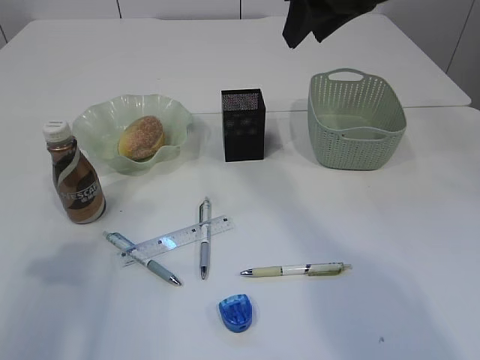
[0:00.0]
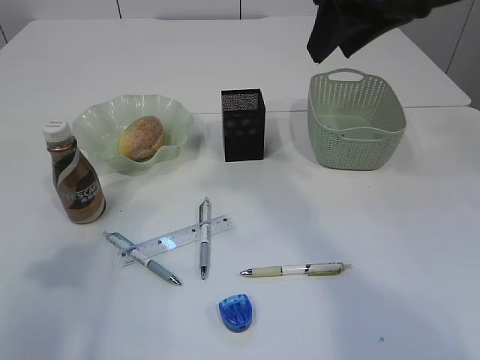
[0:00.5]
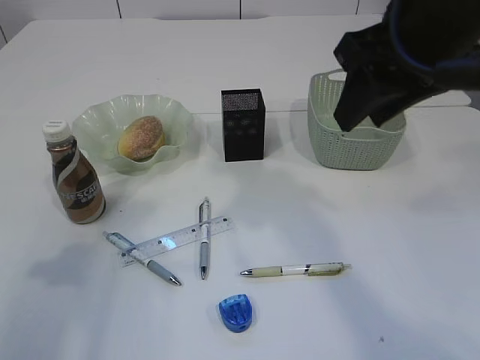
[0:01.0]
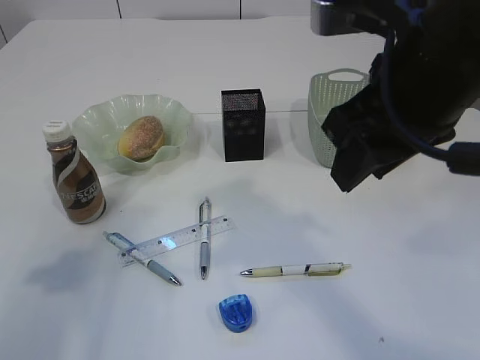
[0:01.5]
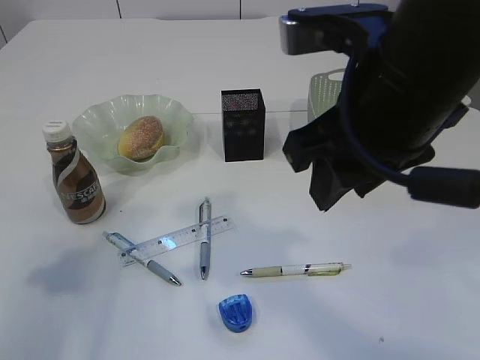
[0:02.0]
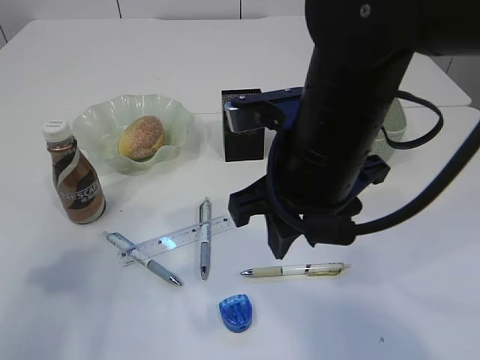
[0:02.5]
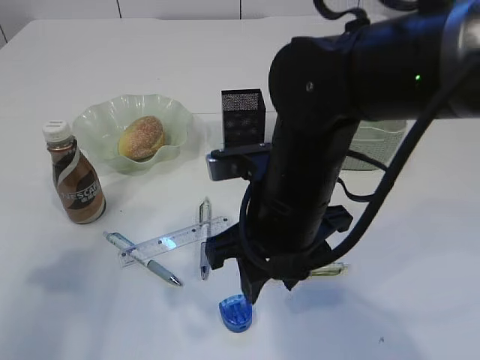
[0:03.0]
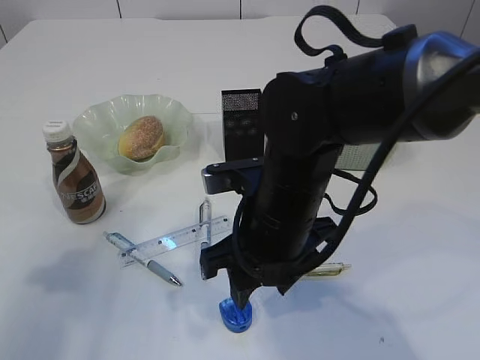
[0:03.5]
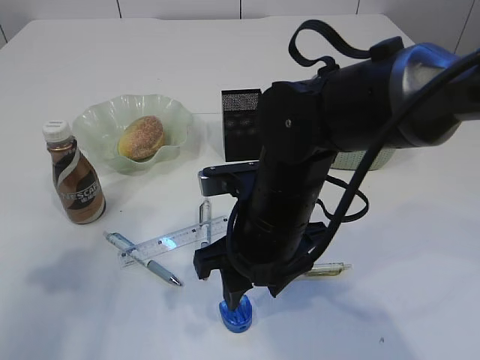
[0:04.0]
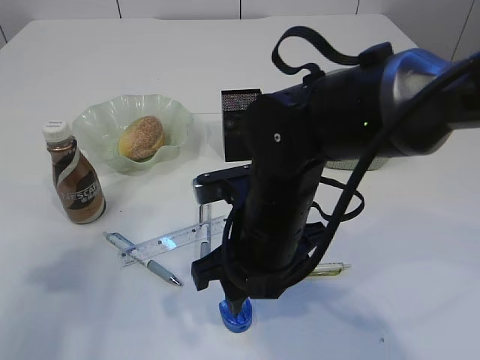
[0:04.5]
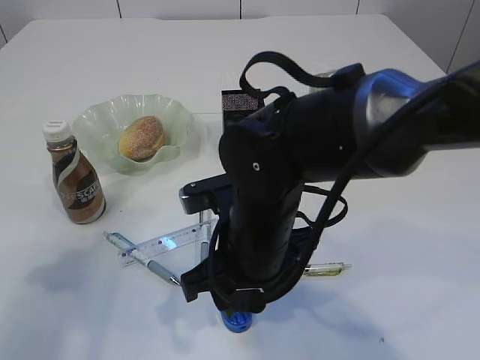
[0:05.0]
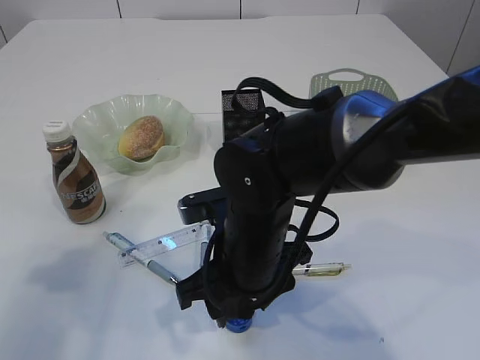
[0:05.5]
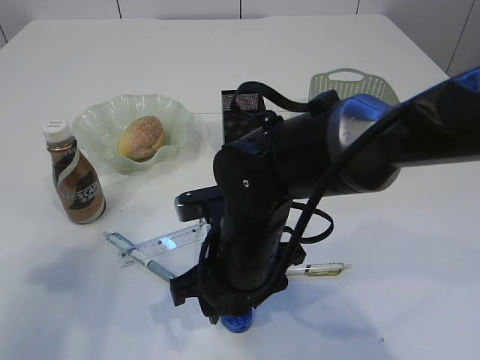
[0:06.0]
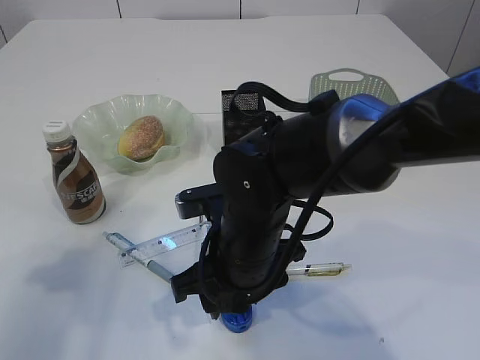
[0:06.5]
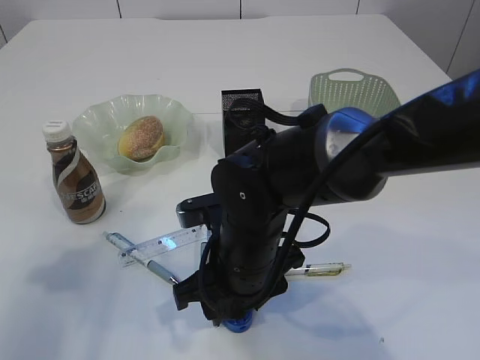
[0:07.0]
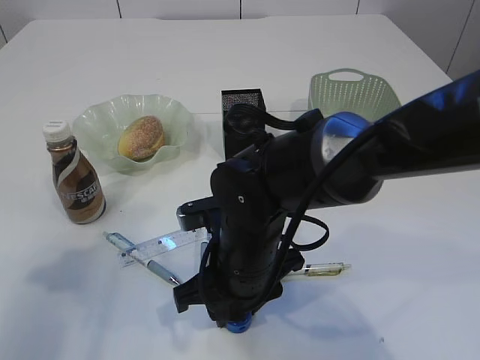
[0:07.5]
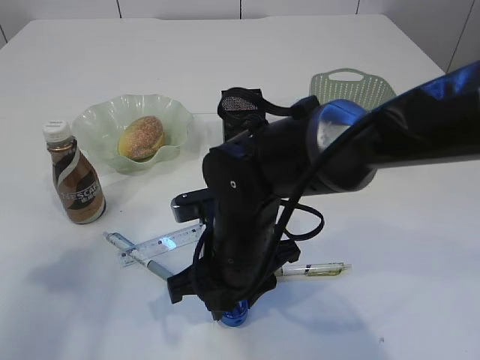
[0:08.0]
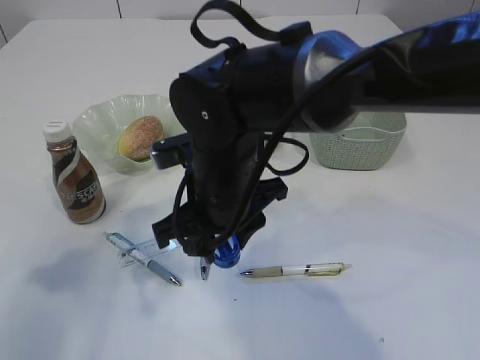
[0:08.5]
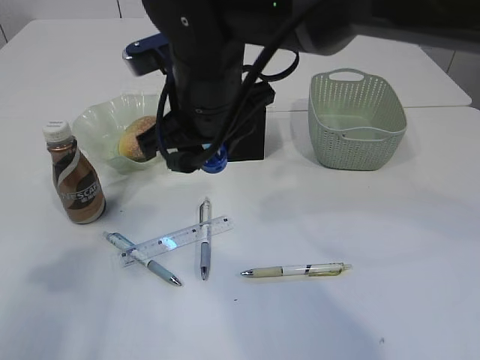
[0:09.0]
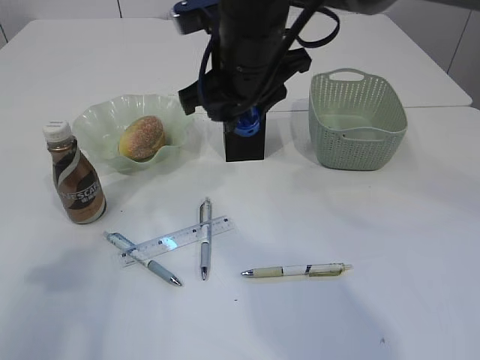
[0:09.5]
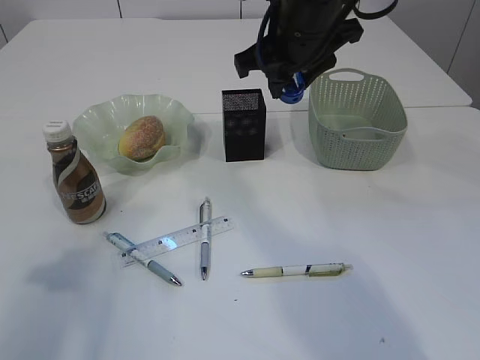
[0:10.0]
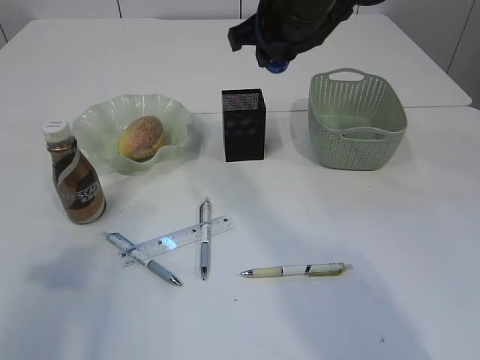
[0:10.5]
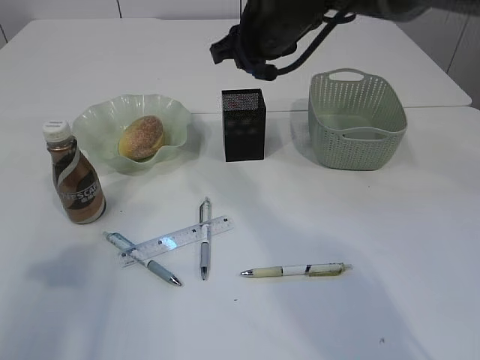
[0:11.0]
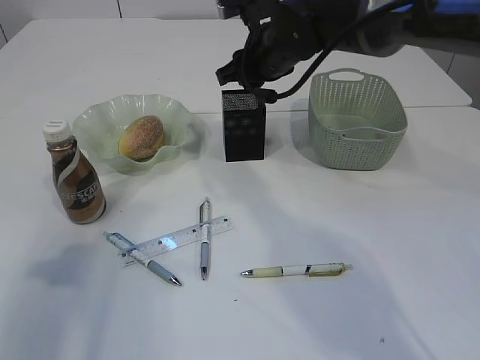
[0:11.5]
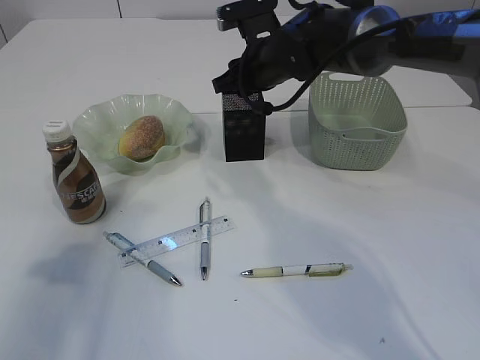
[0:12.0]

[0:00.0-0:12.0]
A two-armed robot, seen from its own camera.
Step, 0:00.0 to 0:08.5: Pick up the blue pencil sharpener.
0:00.0 to 0:02.0: The right gripper moves backward, about 15 cm.
0:02.0 to 0:04.0: The right gripper goes approximately 15 cm downward and to the left.
0:04.0 to 0:08.0: The grippers make only small movements.
0:08.0 to 0:10.0: The right gripper goes approximately 25 cm upward, forward and to the right.
0:10.0 to 0:12.0: The right gripper heads forward and downward, covering approximately 15 cm.

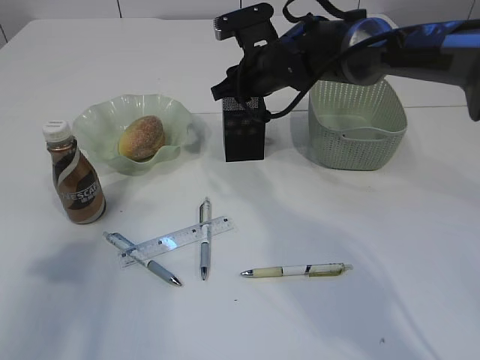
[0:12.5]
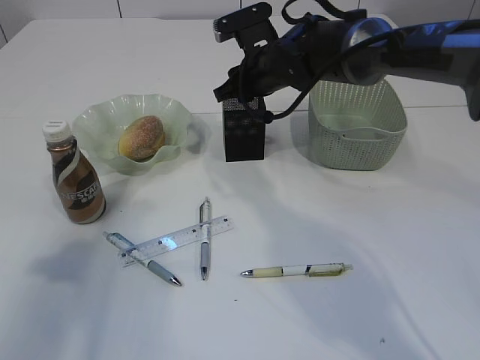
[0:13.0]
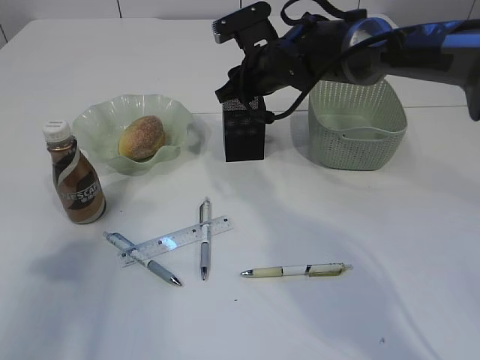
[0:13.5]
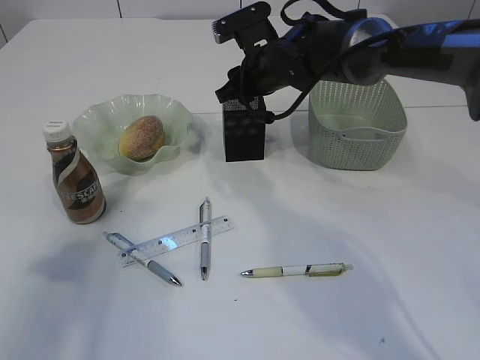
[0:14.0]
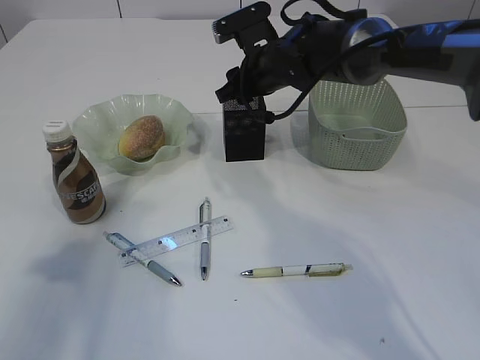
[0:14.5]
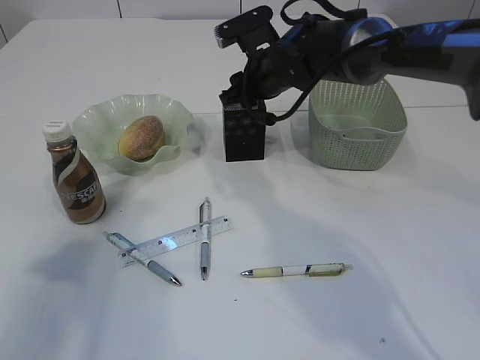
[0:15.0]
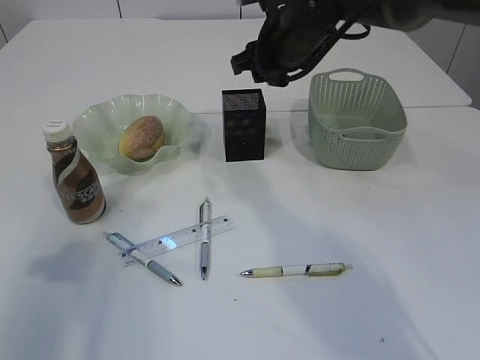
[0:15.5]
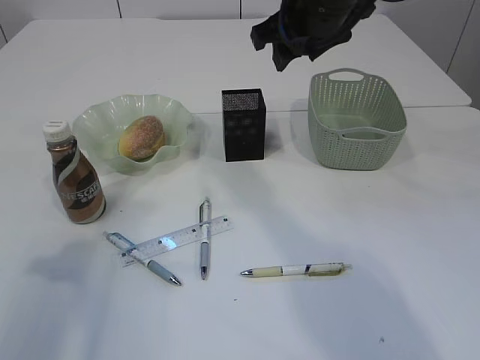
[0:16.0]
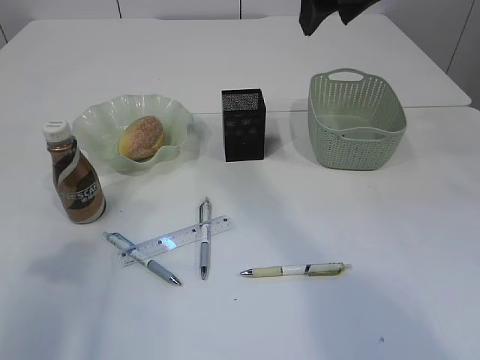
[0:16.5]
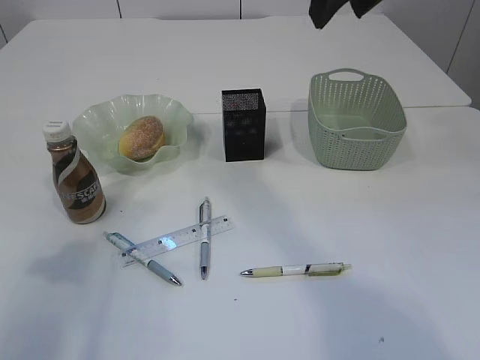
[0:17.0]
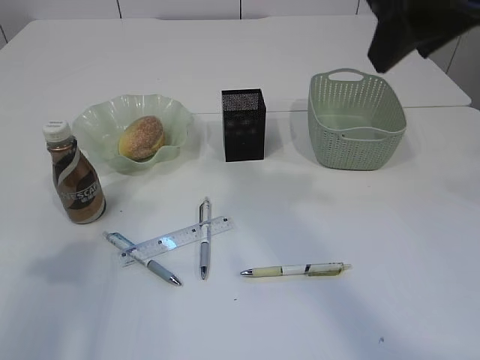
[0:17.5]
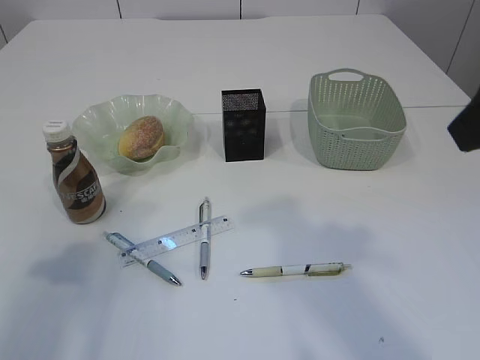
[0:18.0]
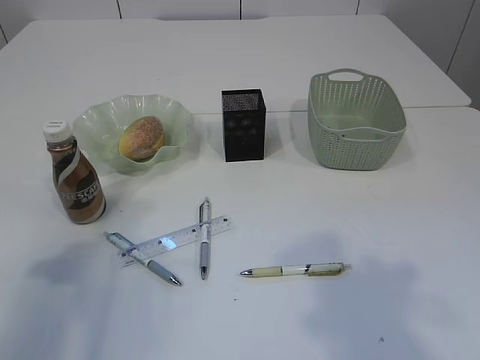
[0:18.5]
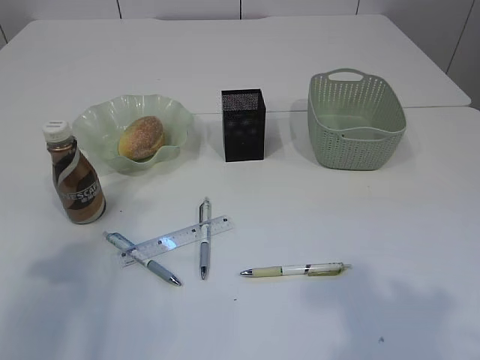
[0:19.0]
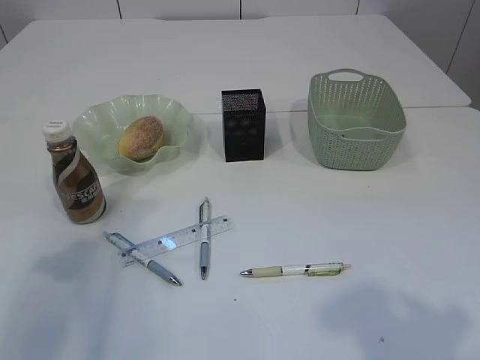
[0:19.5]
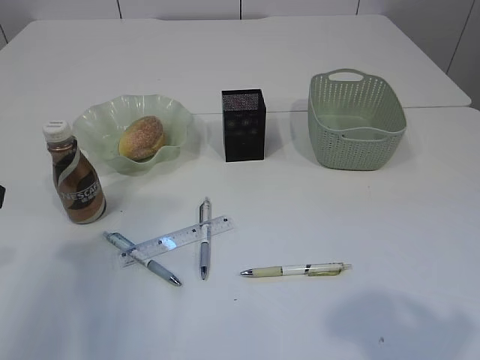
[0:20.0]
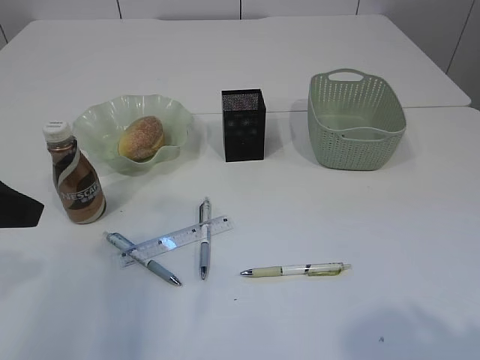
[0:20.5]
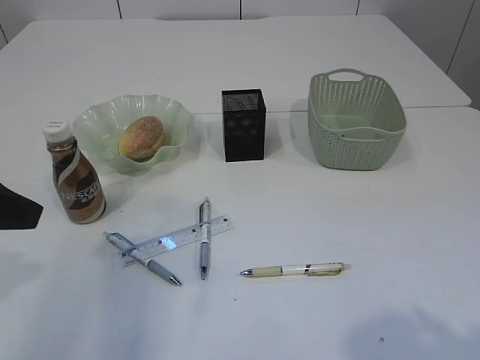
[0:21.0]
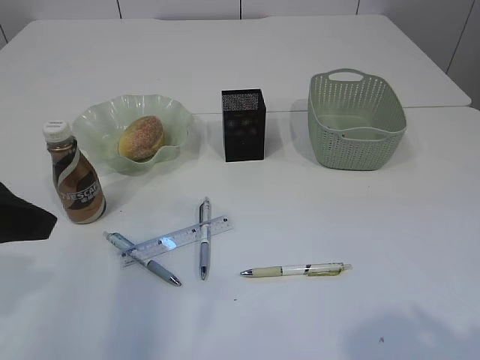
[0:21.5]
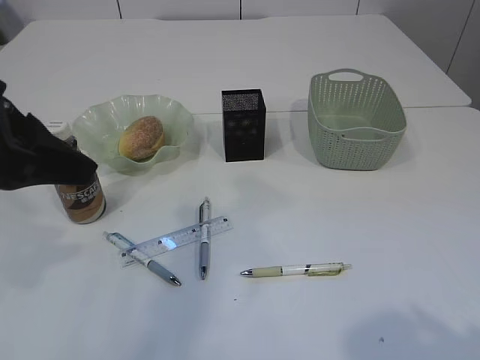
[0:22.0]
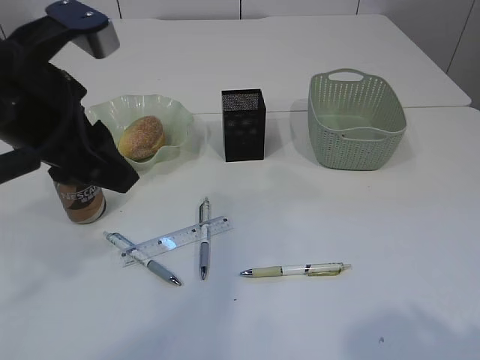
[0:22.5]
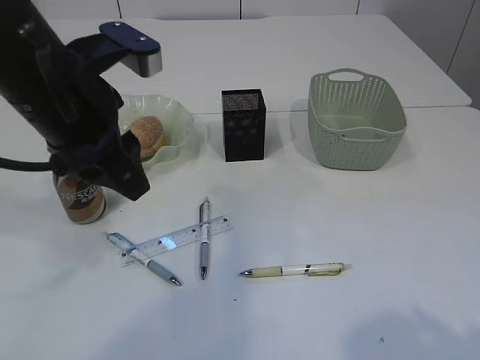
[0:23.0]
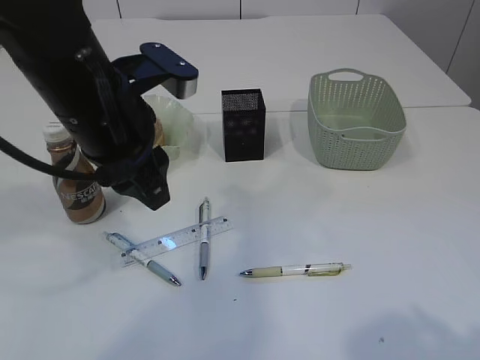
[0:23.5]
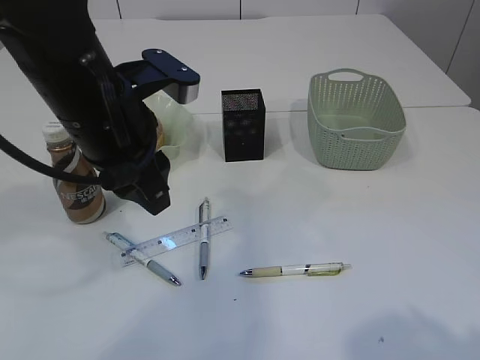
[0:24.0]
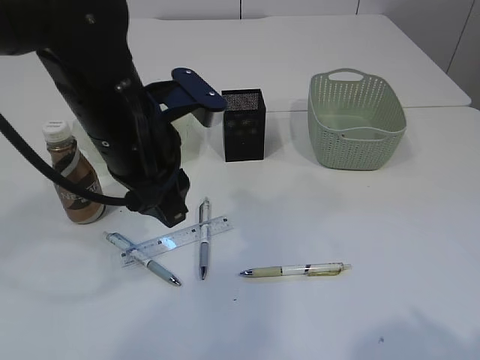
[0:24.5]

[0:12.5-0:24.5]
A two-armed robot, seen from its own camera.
Step, 0:12.5 to 0:15.5: Place the blue pencil sharpener into the pen holder.
0:12.5 to 0:14.5: The grippers move only a little.
0:14.5 to 0:16.5: The right gripper travels upward and backward by some 20 cm.
0:16.5 to 0:18.5: The right gripper heads backward and to the right, covering about 25 cm.
0:20.5 to 0:22.5: The left gripper goes roughly 10 cm to the right.
0:22.5 to 0:24.5: The left gripper heads to the right and downward, covering some 10 cm.

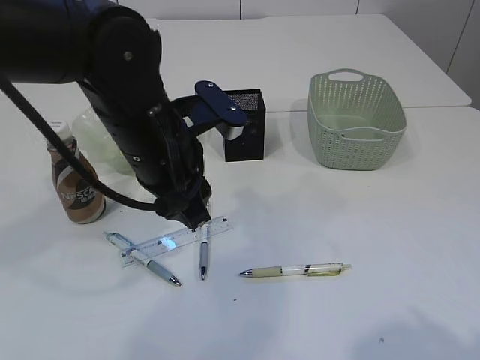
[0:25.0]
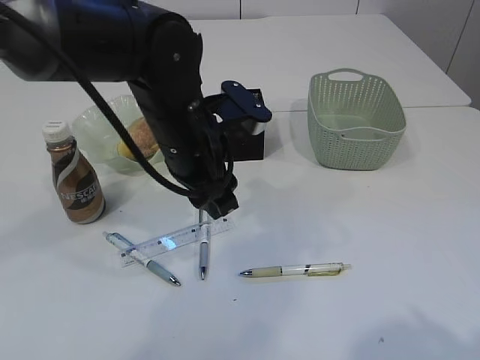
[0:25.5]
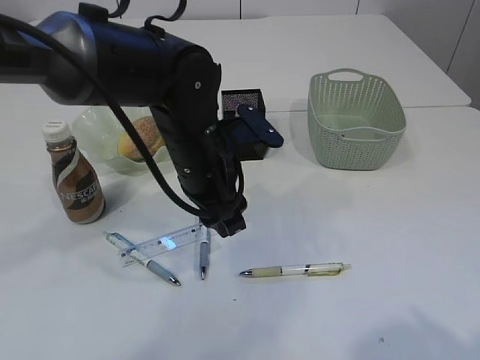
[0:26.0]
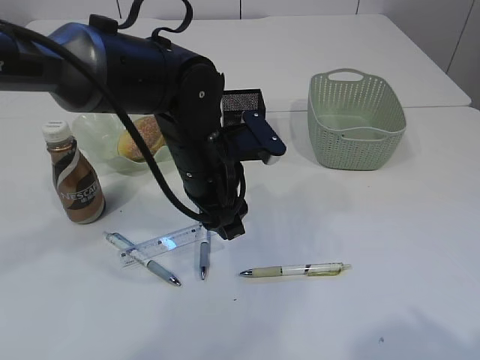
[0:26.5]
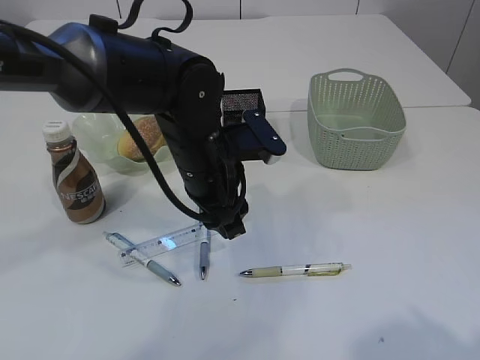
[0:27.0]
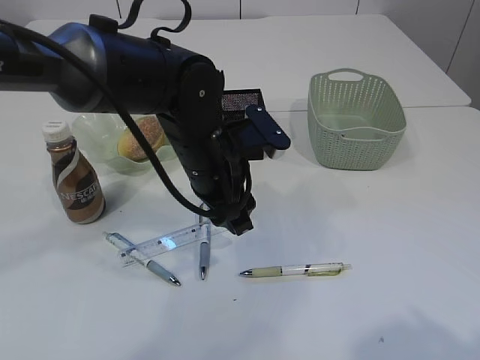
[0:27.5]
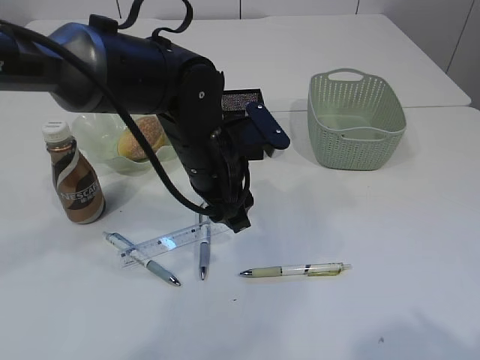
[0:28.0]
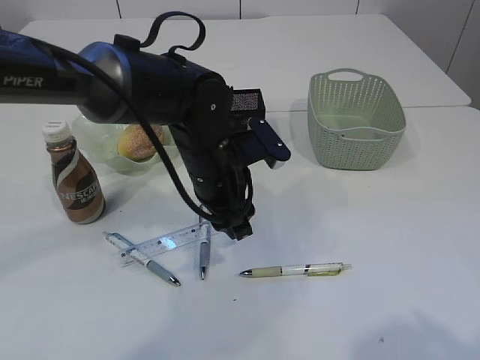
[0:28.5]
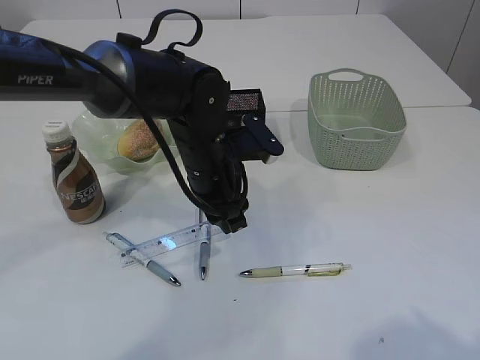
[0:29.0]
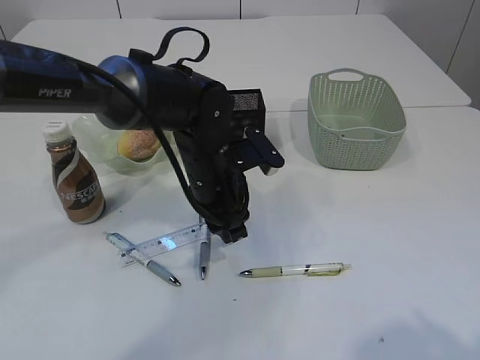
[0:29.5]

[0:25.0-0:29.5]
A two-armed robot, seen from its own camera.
0:25.0 to 0:27.0: The left gripper ends up some 5 cm from where it was.
0:27.0 to 0:29.5: The left gripper shifts by about 5 cm.
